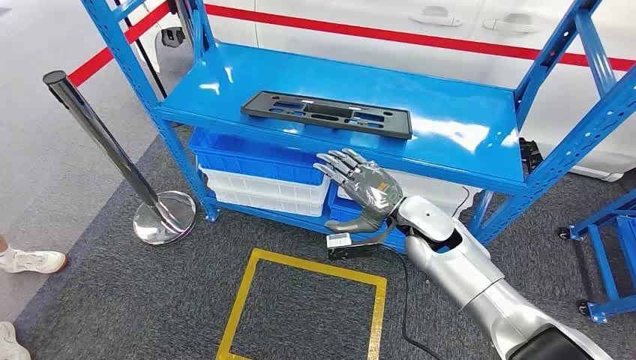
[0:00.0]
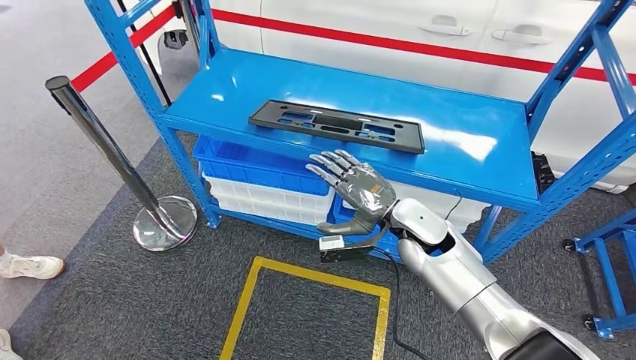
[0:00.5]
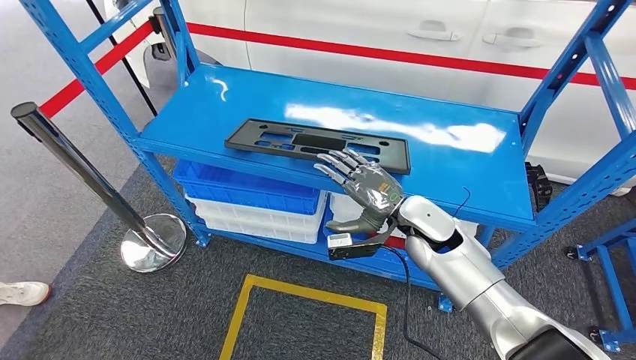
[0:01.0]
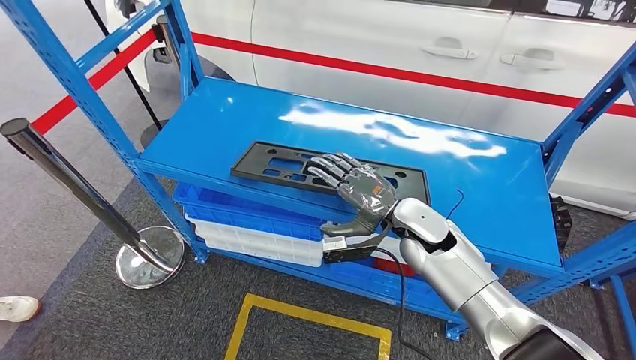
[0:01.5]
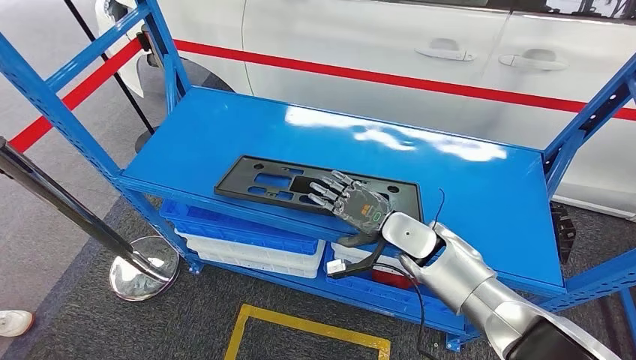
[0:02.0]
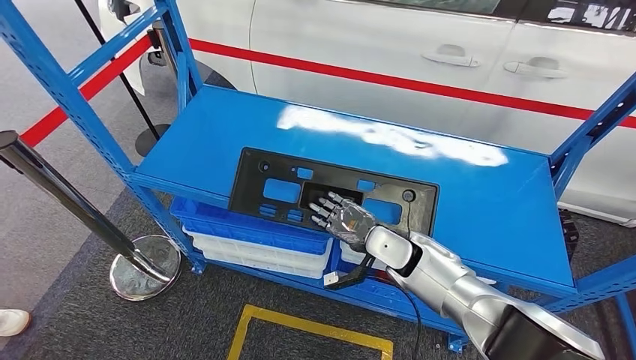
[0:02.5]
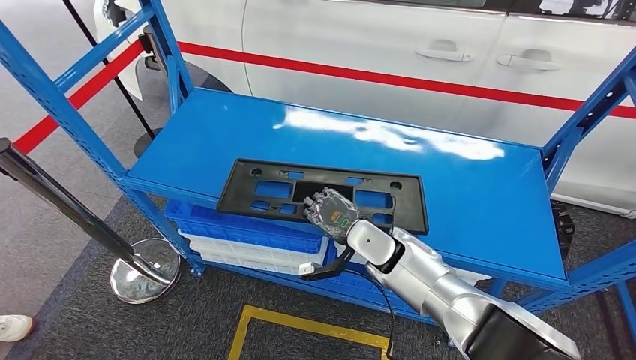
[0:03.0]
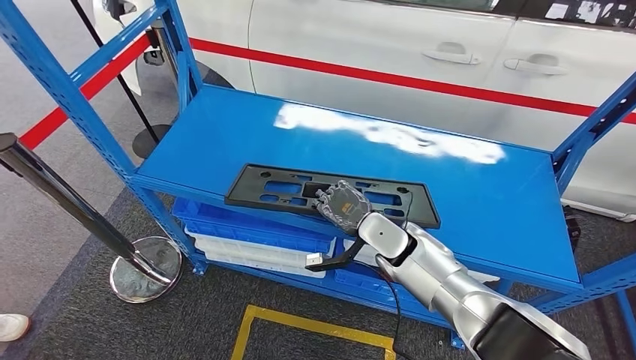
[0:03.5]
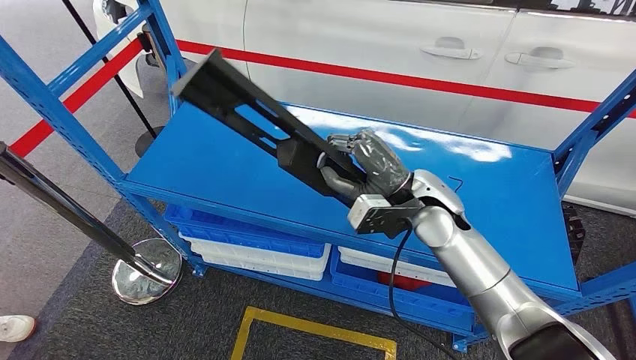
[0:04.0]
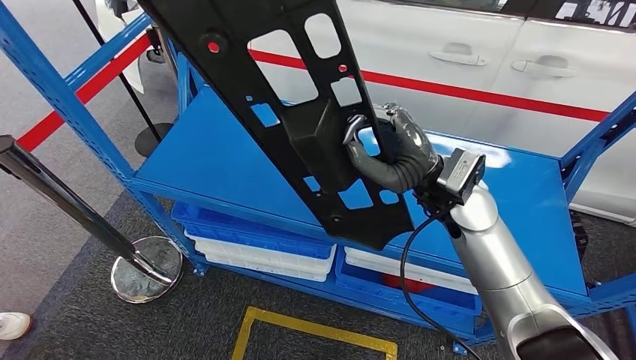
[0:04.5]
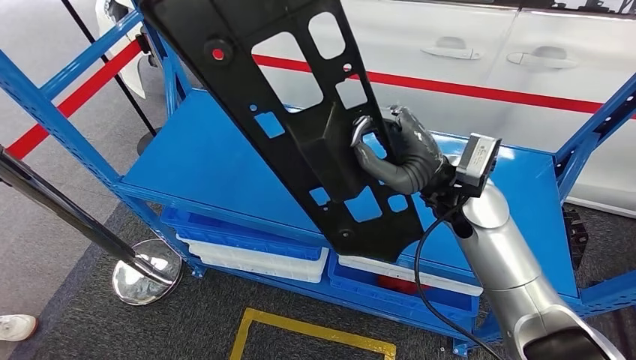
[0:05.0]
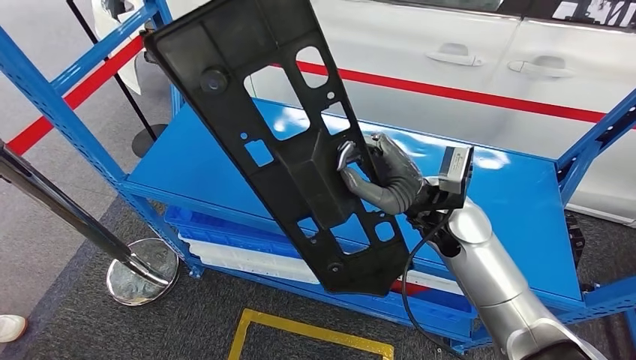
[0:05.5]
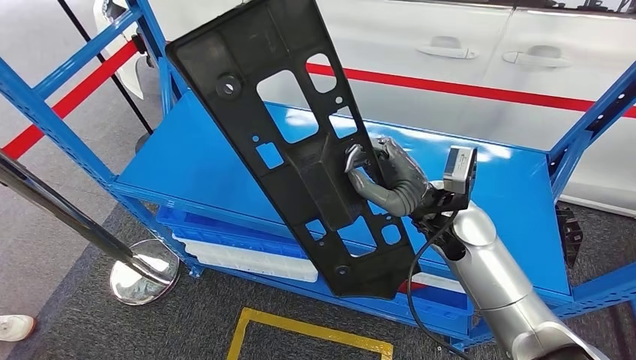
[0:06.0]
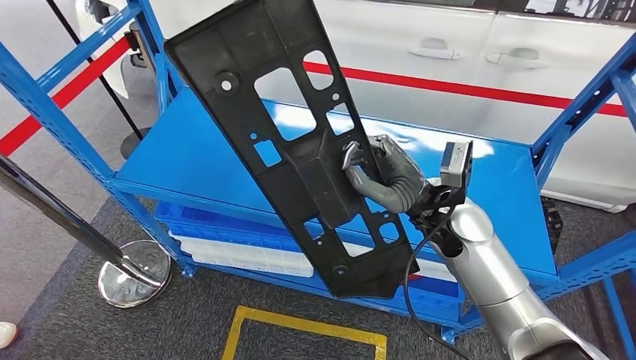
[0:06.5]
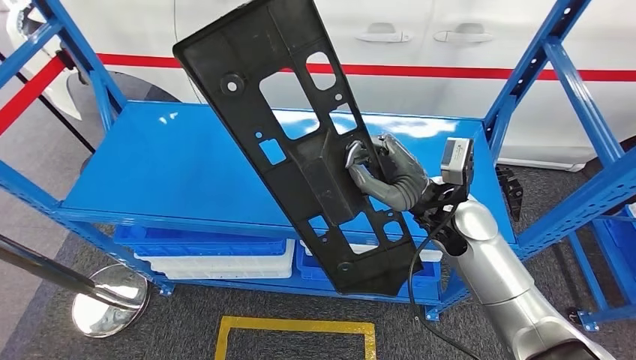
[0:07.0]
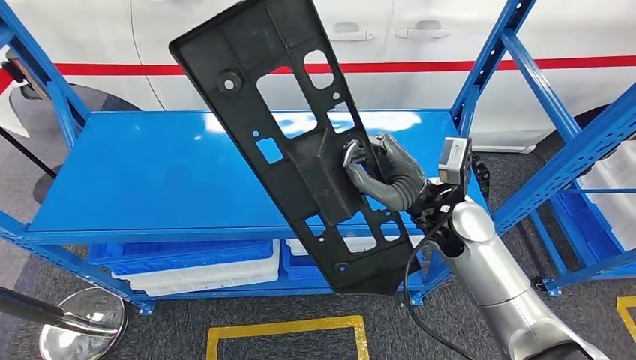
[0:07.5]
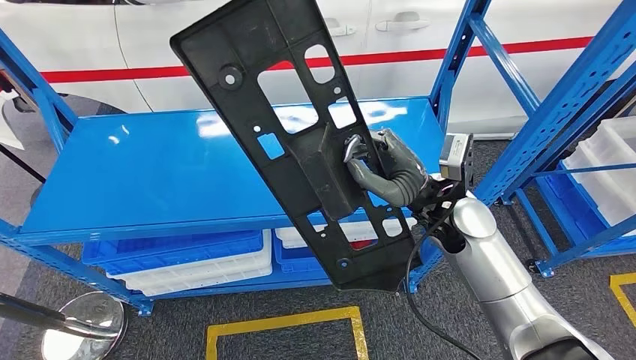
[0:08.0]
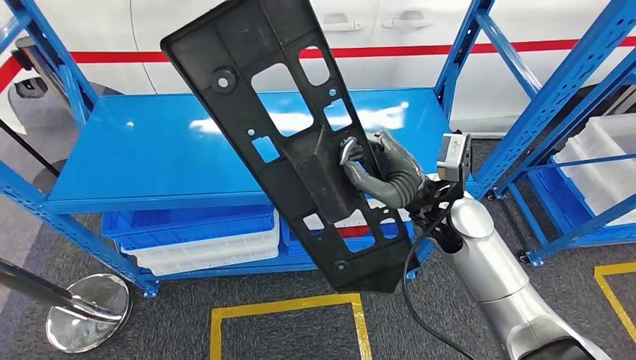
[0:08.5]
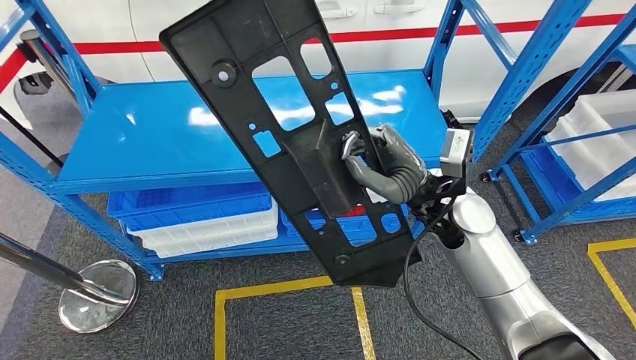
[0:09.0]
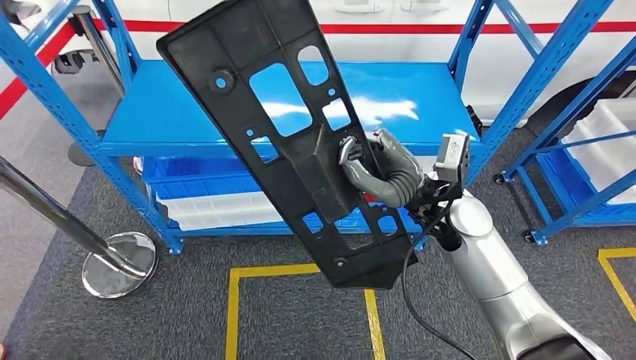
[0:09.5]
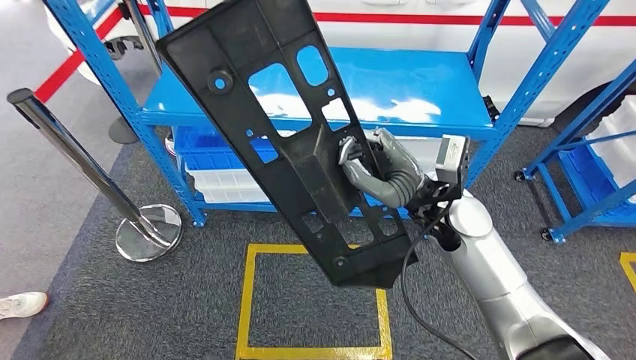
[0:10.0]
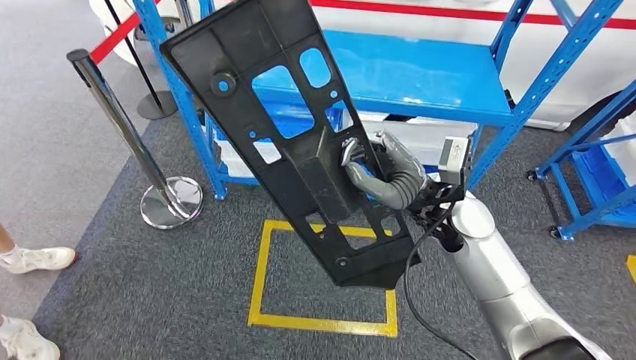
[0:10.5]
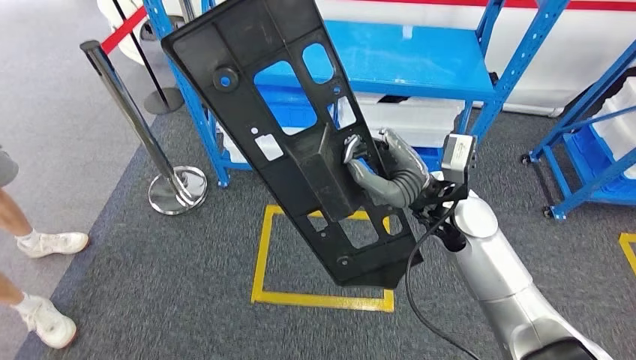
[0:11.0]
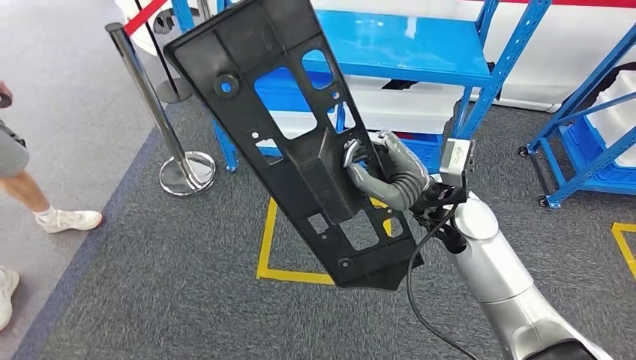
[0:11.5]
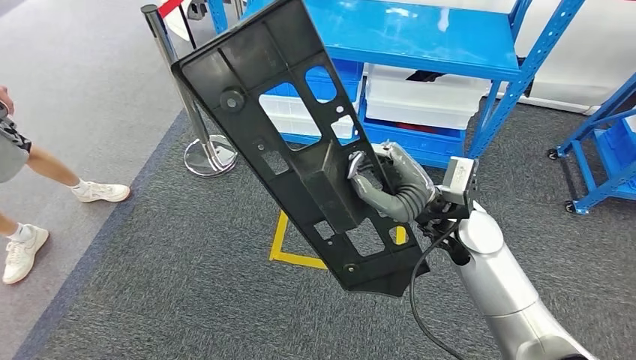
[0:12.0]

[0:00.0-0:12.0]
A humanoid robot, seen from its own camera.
Step, 0:00.0 to 0:05.0: Pick up the large material from the shelf.

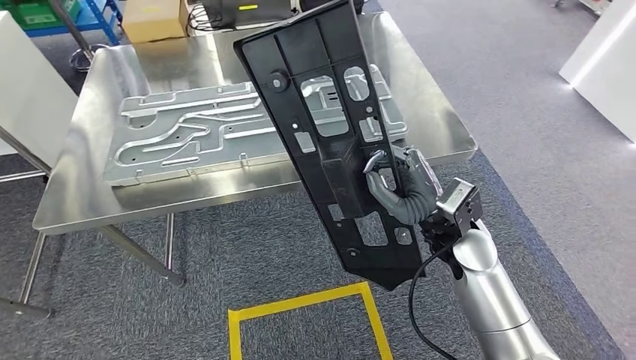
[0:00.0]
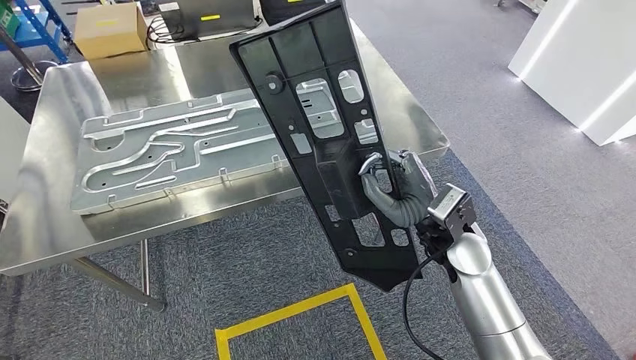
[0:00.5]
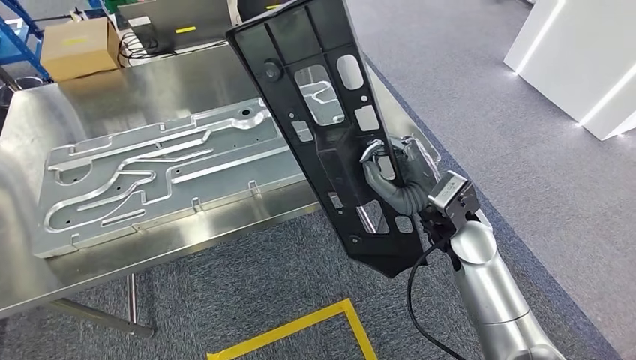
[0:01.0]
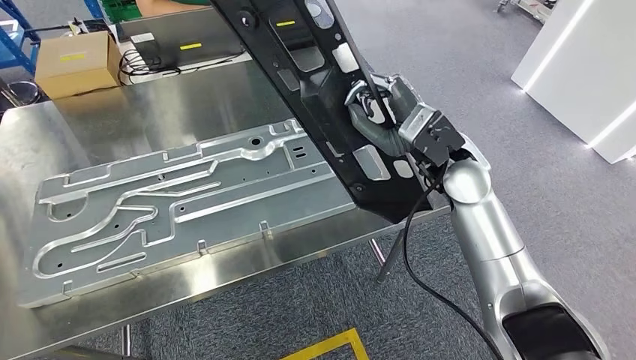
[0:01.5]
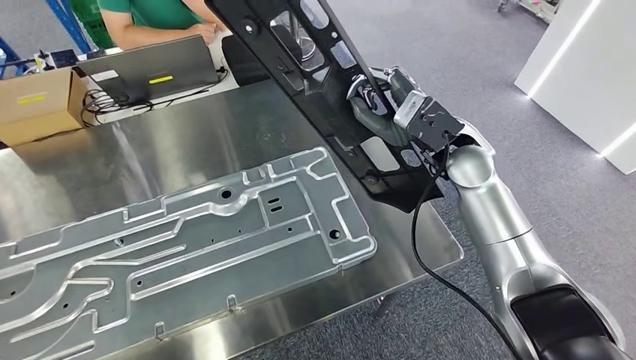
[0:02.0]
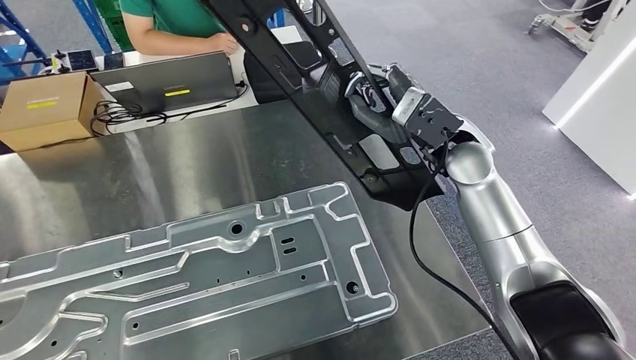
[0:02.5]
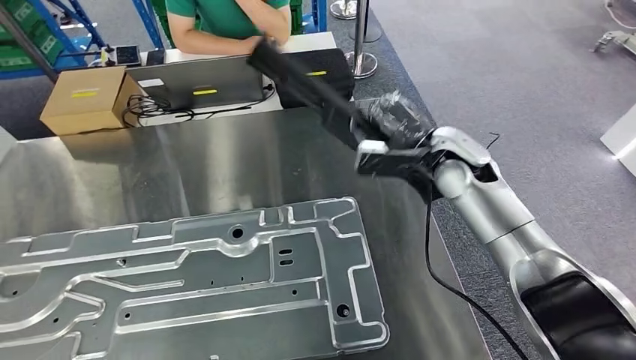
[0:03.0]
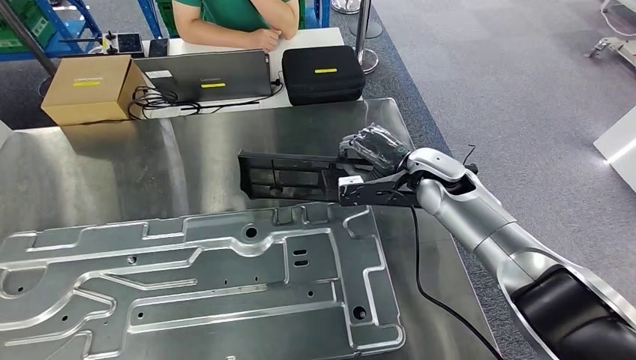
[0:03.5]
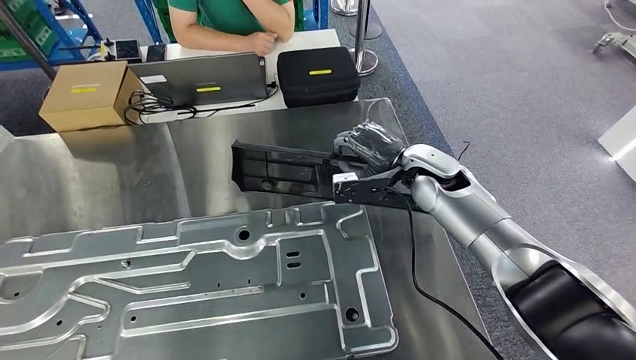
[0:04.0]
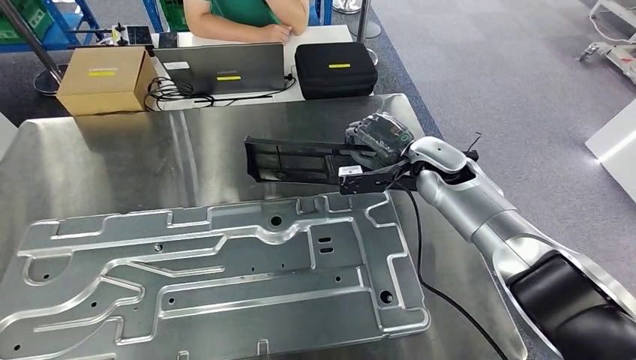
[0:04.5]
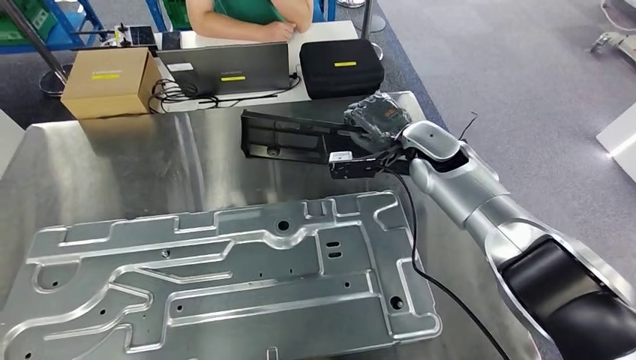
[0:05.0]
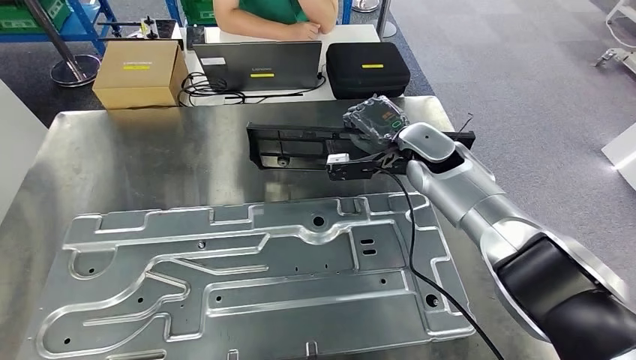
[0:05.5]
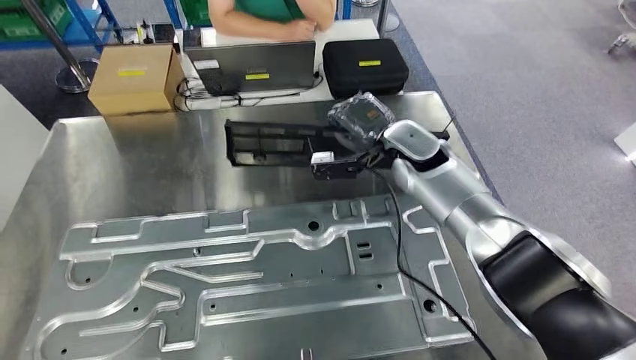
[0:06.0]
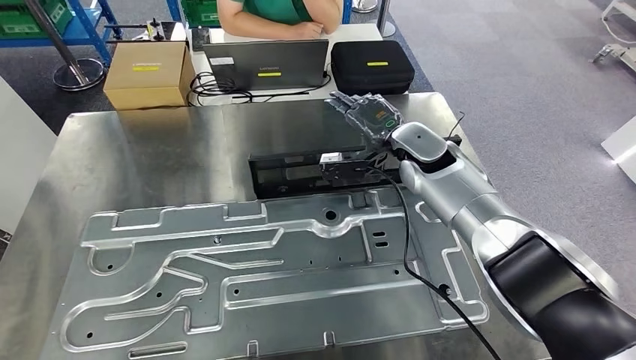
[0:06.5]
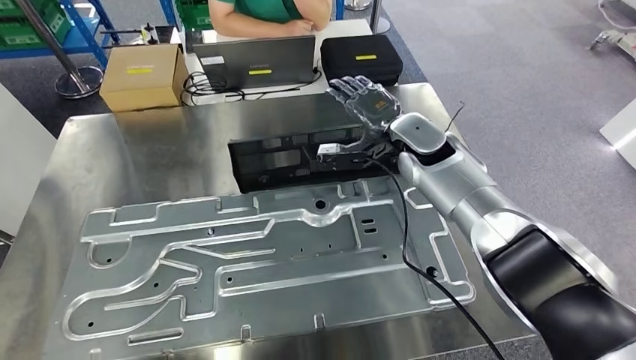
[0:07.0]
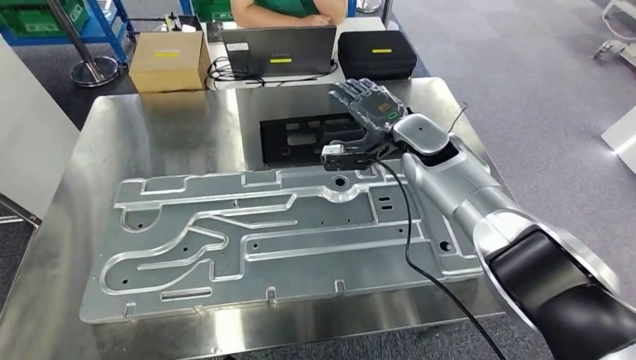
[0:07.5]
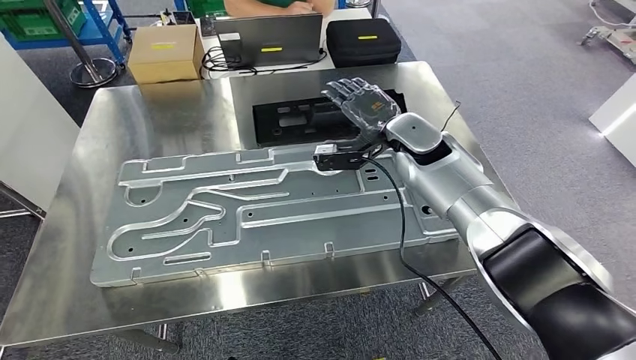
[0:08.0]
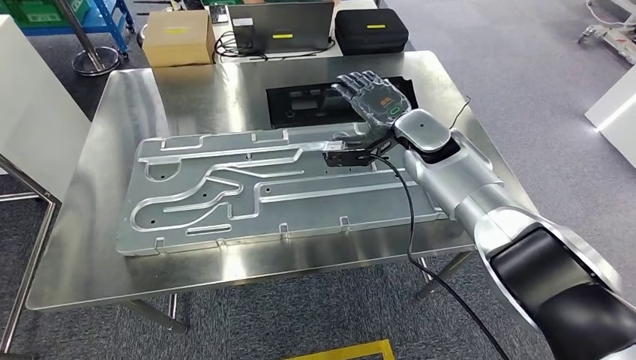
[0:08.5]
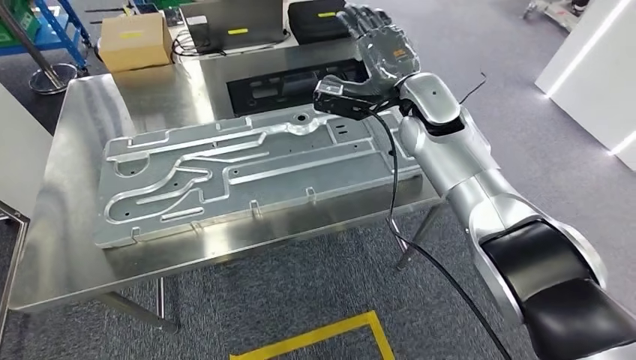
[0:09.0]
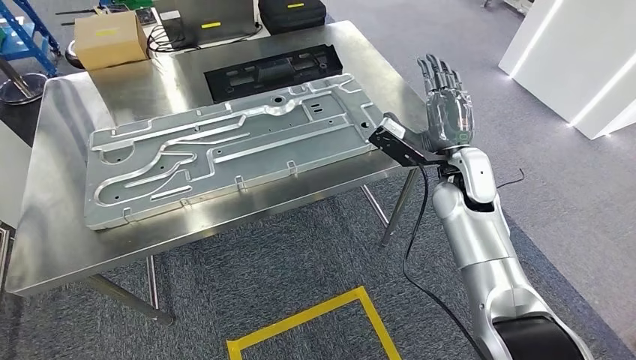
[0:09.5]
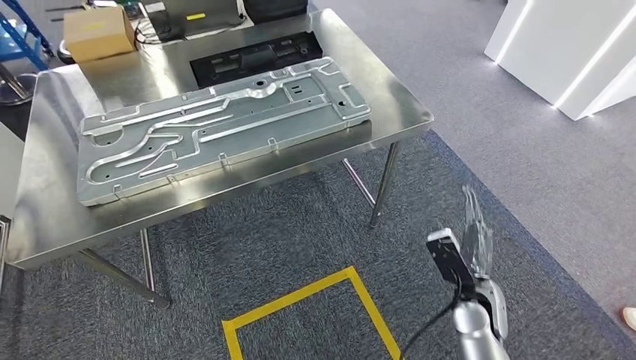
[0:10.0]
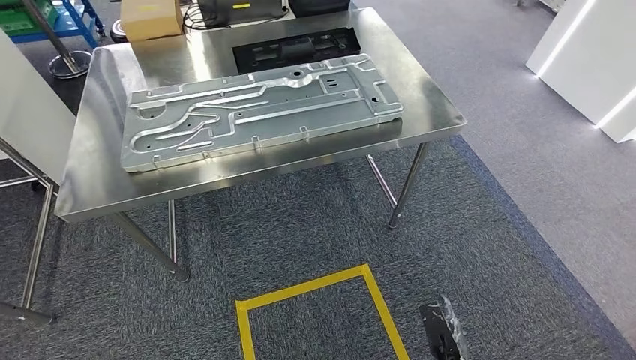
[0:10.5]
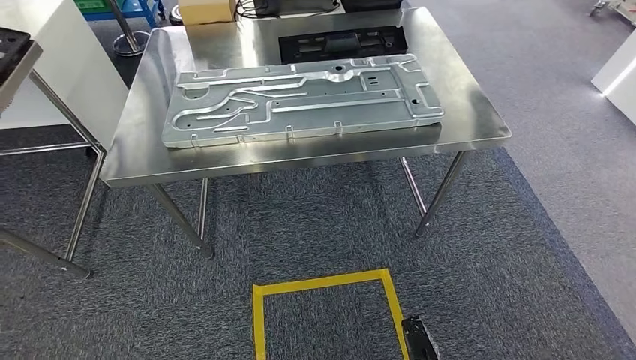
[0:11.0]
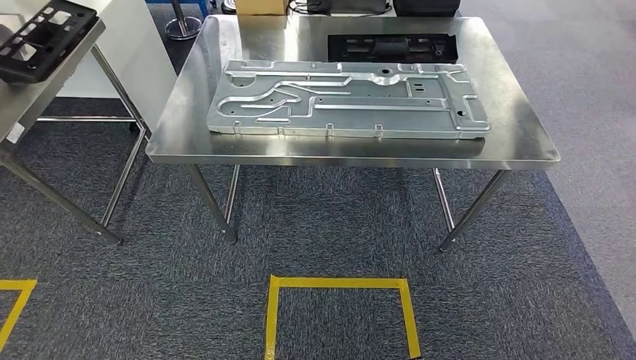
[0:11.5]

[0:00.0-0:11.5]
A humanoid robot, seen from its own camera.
Step, 0:02.0 to 0:09.5: Insert the large material into the corresponding slot on the workbench.
